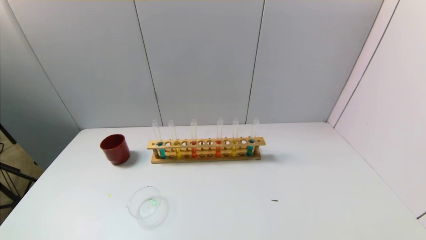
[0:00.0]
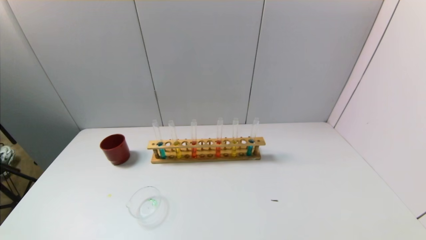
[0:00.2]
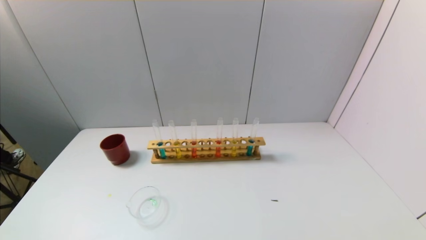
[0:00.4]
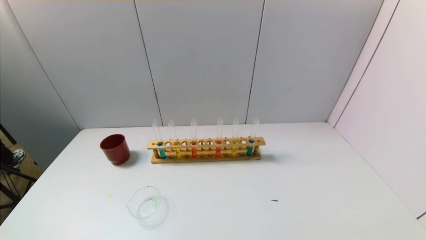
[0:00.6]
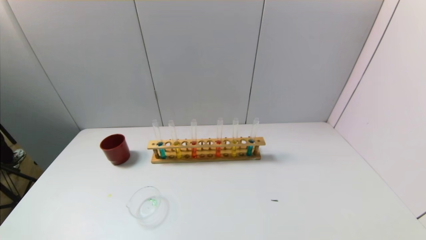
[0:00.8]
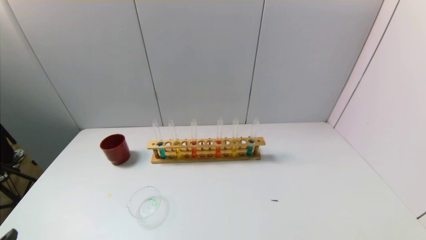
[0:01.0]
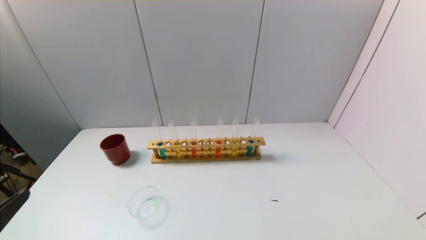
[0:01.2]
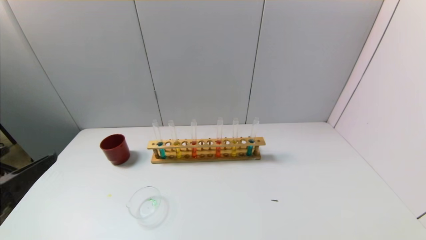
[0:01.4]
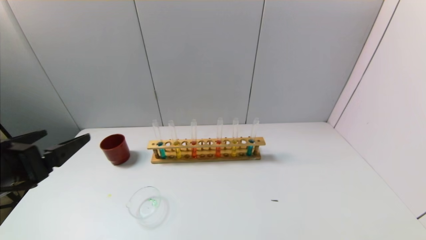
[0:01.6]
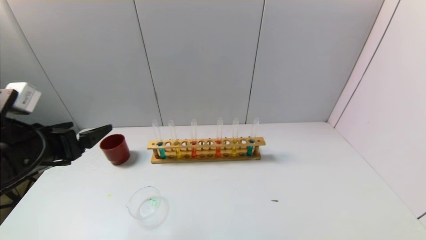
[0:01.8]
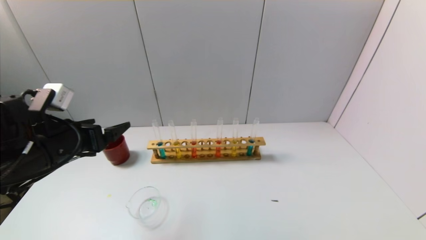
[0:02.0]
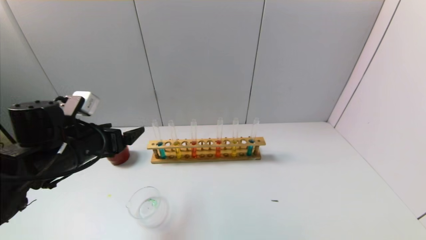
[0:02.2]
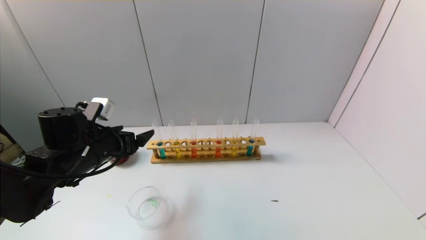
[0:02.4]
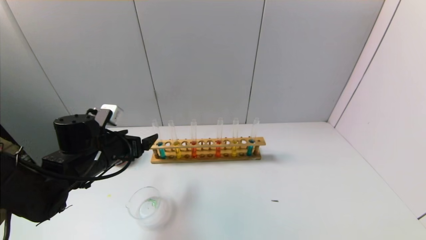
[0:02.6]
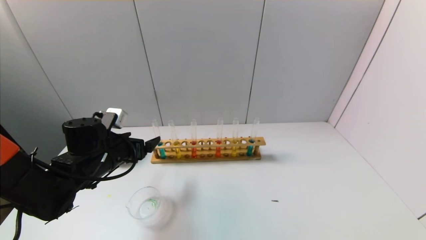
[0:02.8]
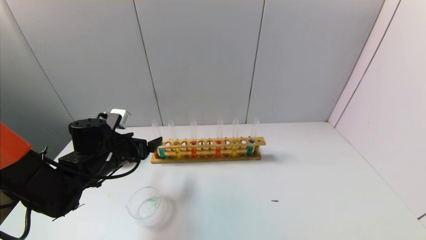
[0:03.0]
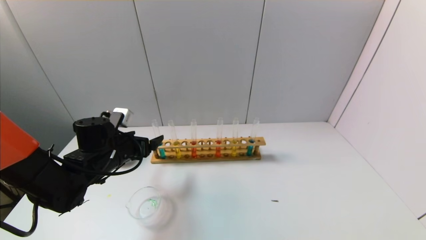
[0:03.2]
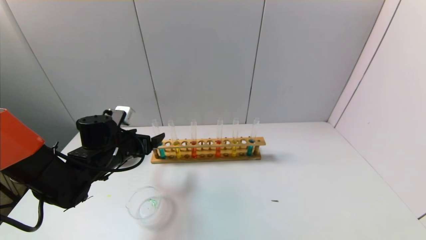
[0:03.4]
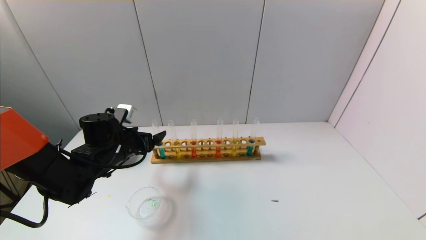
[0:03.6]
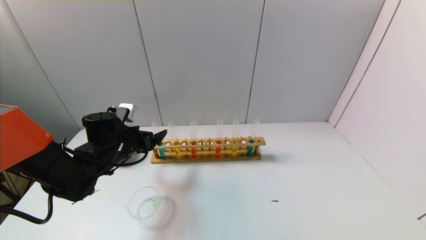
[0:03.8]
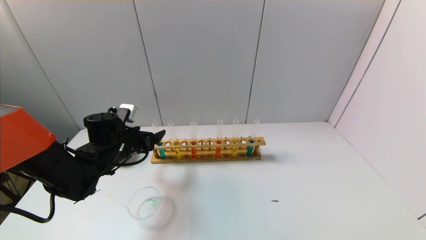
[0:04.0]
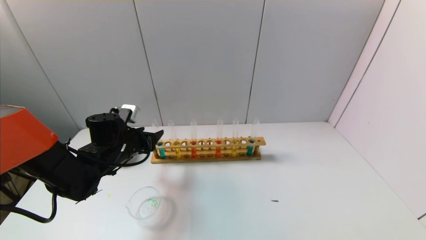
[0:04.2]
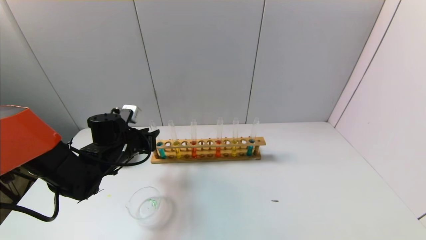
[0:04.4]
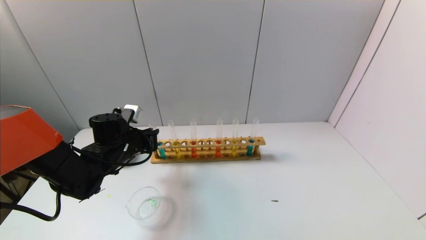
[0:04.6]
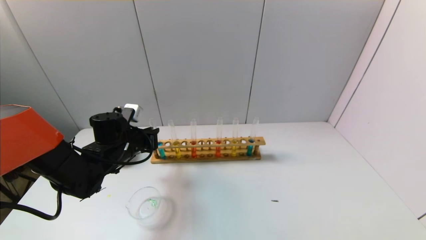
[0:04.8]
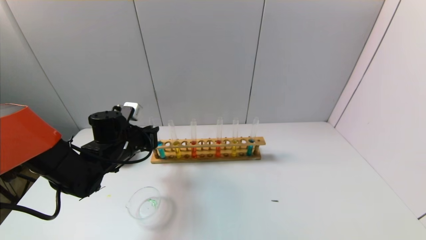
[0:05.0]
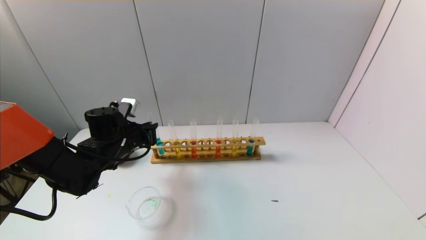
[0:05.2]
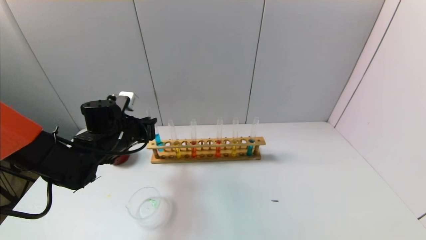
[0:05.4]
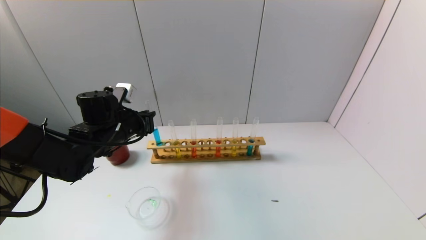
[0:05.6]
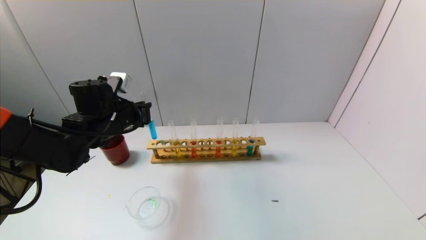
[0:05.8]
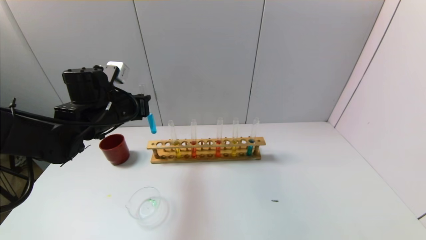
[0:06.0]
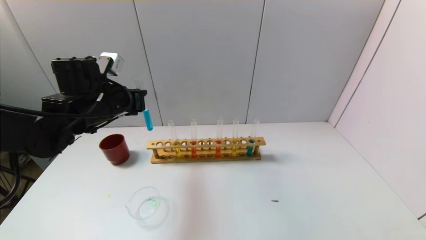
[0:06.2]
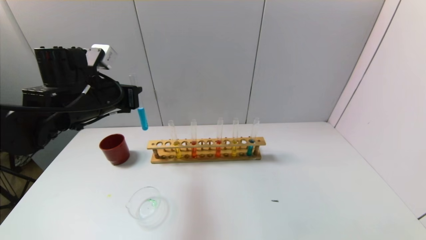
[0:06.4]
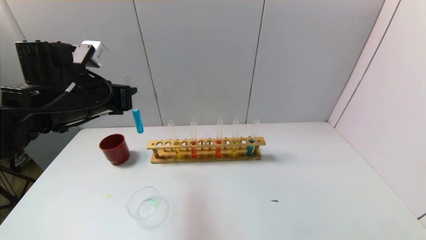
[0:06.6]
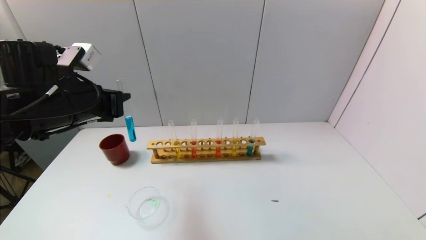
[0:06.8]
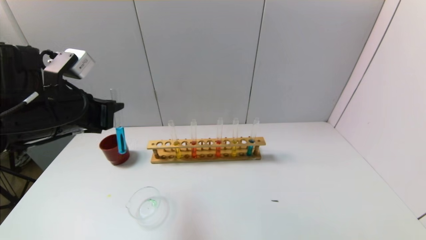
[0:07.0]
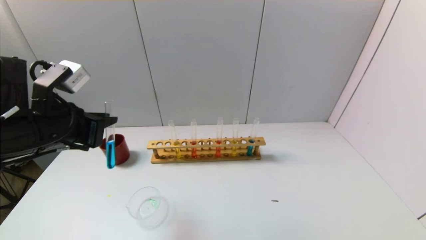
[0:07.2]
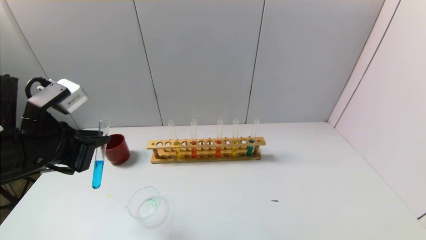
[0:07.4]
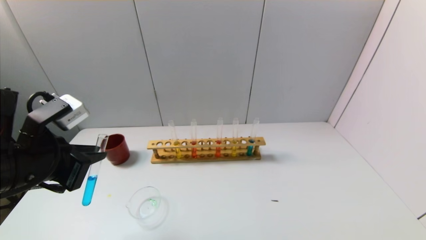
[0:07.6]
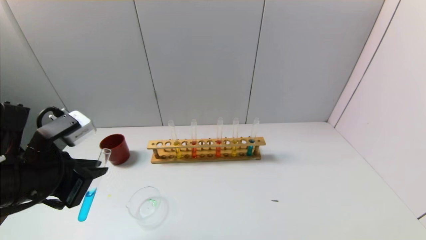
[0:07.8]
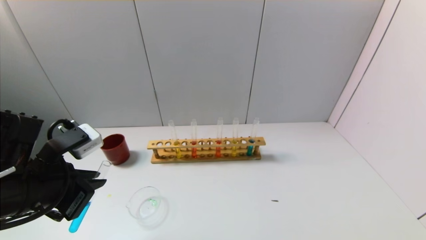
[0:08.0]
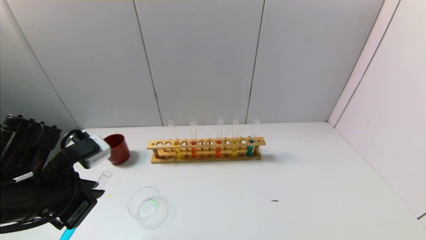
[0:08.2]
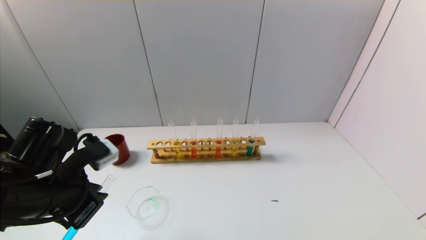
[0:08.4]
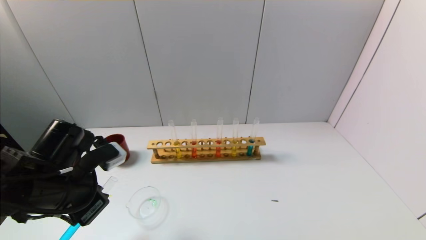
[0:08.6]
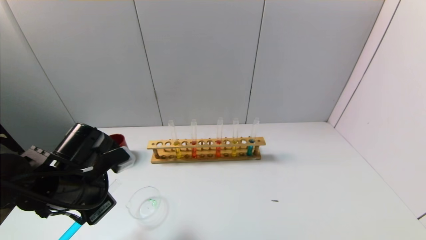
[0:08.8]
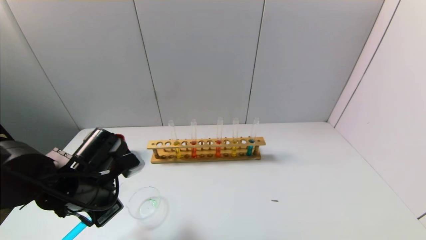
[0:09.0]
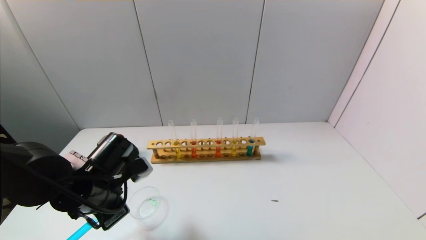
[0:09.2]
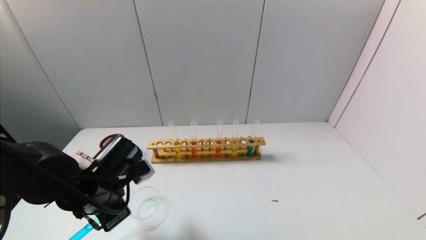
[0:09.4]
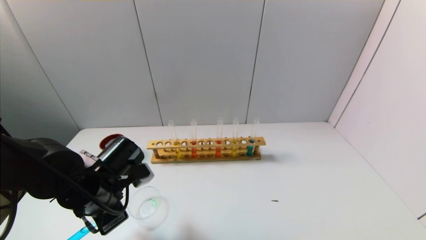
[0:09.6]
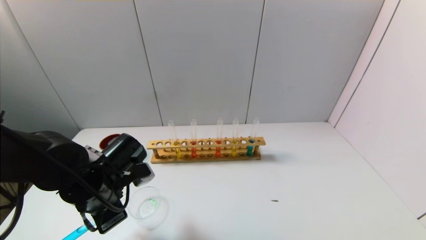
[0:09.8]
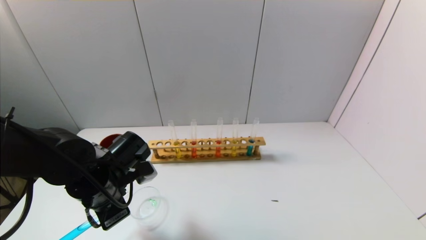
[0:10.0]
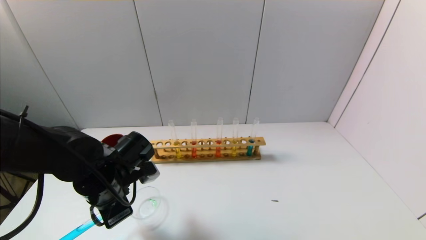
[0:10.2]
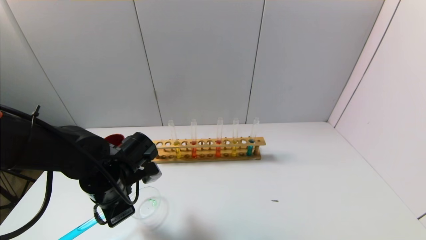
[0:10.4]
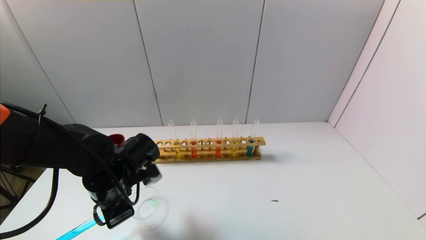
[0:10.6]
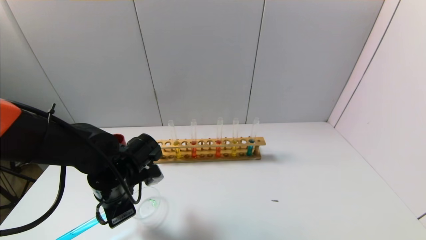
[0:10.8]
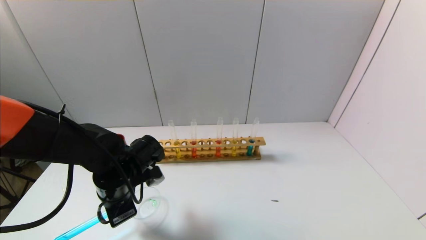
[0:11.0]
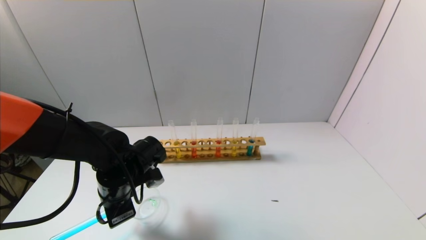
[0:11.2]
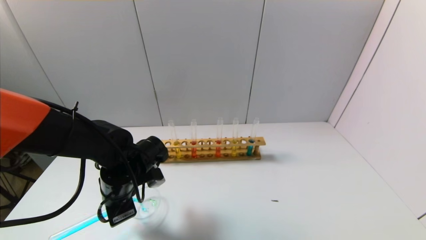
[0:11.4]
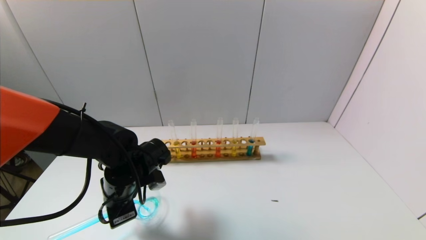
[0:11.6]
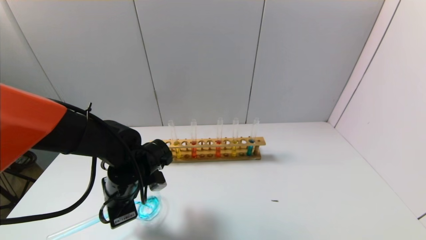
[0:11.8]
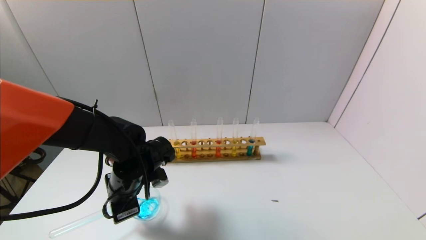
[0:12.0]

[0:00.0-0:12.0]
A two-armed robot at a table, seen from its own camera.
Task of the whole recording: pick up the test tube with yellow pigment and the test tube with blue pigment by grippers and pour them into the beaker.
Step, 0:00.0 to 0:05.0: Grasp the blue reagent with the left gripper.
0:00.0 to 0:01.6: The left gripper moves forward and upward, some 20 cm.
0:01.6 to 0:03.0: The left gripper shifts roughly 20 cm forward and downward.
0:03.0 to 0:04.4: The left gripper closes its fingers.
0:04.4 to 0:06.0: The left gripper heads upward, covering some 10 cm.
0:06.0 to 0:07.6: The left gripper travels backward by some 15 cm.
0:07.6 to 0:09.0: The left gripper goes roughly 10 cm downward.
0:09.0 to 0:10.4: There are only small adjustments of the grippers.
0:10.4 to 0:12.0: The grippers stay close to where they were, moving slightly.

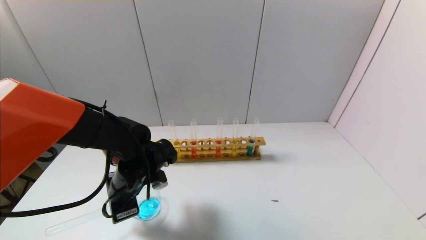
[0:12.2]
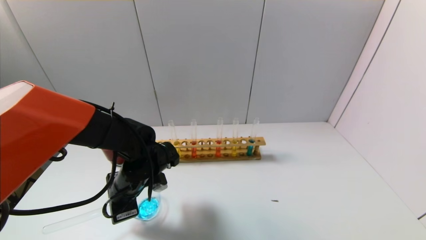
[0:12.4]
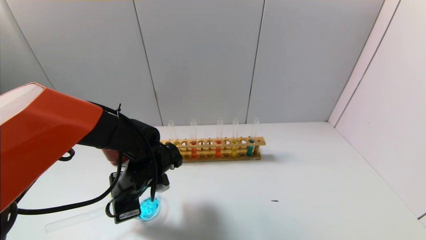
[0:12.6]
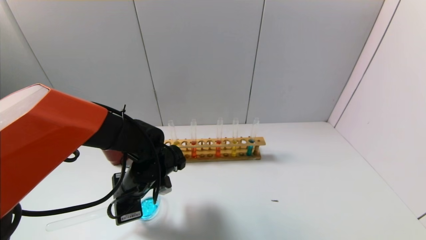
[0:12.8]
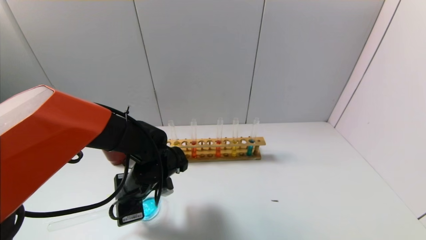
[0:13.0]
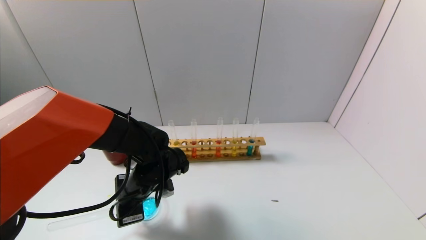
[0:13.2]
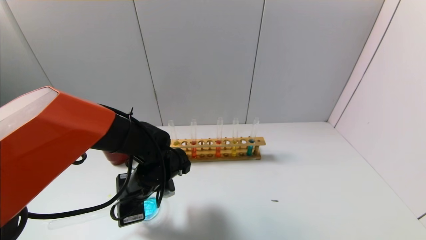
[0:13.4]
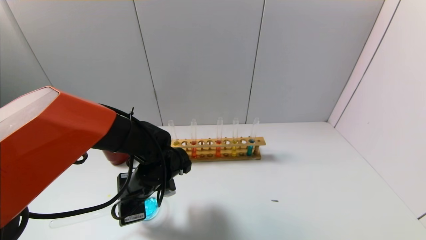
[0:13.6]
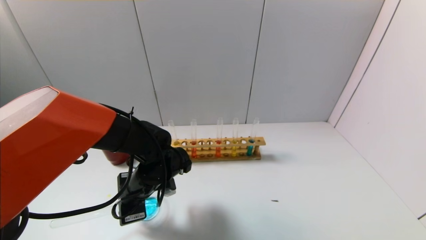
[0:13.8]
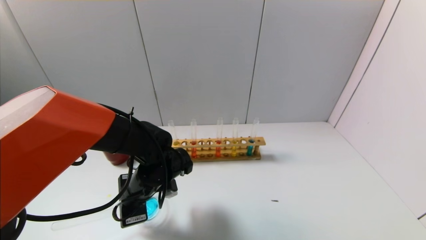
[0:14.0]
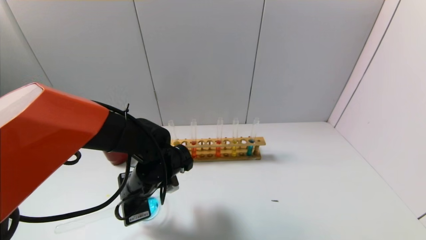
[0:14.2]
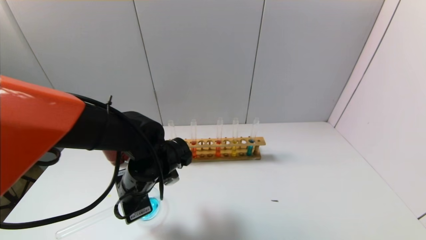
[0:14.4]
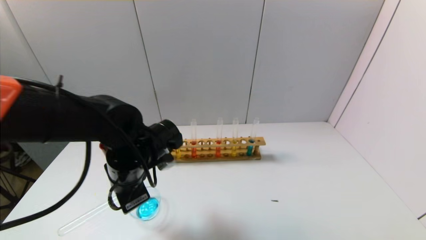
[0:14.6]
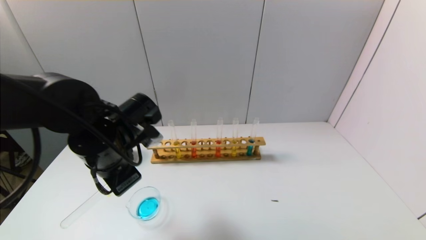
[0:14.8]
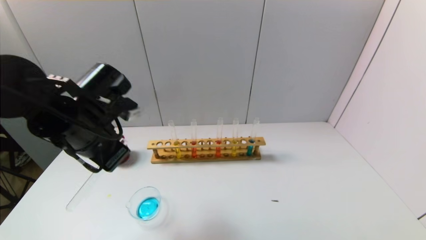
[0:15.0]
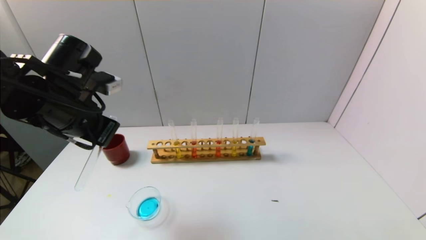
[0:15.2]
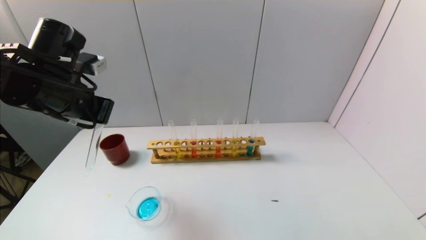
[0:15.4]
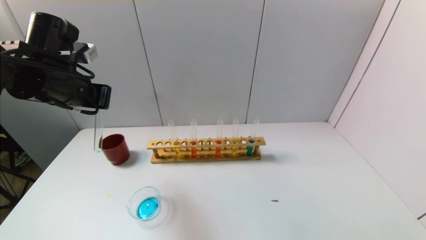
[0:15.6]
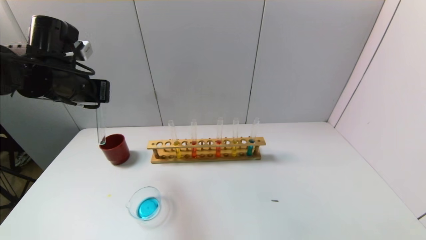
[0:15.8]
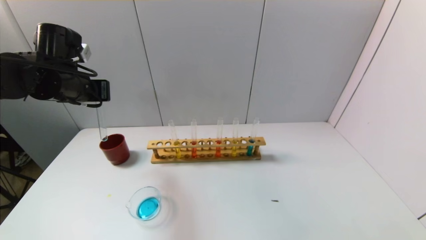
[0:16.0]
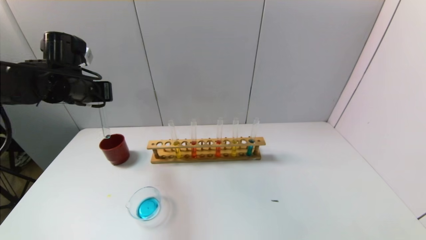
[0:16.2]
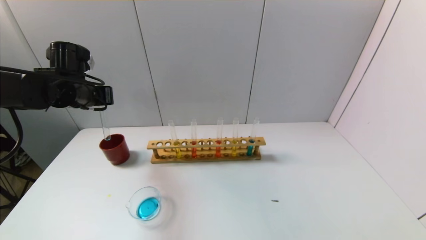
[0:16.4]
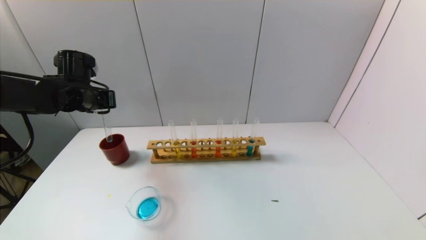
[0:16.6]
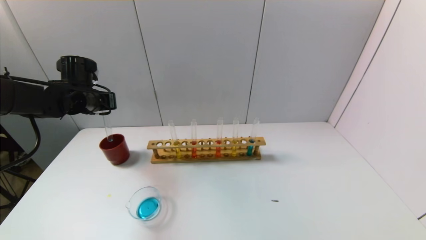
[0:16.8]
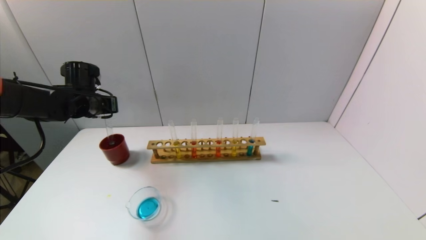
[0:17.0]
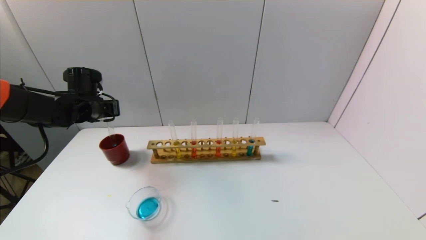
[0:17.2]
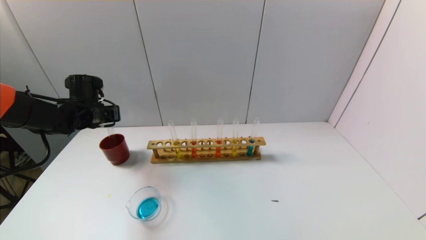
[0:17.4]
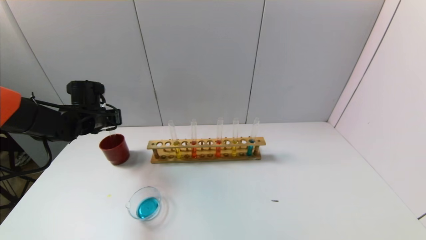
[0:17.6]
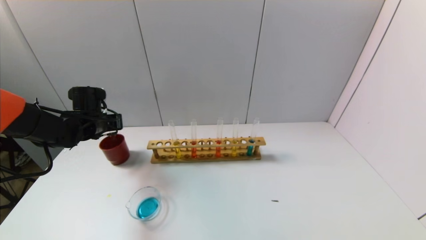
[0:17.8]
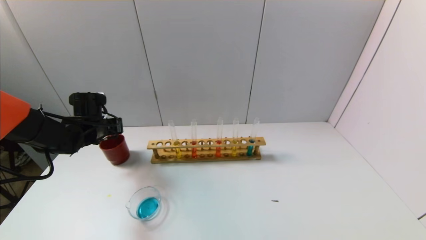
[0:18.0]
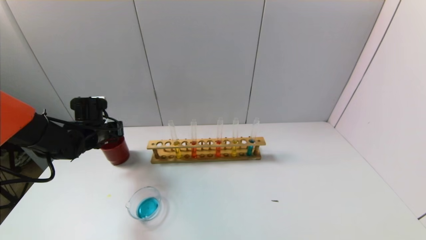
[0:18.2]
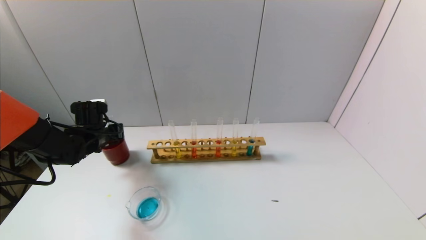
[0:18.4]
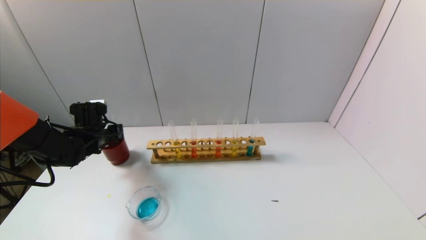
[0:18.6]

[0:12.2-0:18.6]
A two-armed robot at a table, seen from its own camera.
Task of the whole recording: pick up the test tube with yellow pigment and the test tube with blue pigment by grippers and pour them into the beaker.
0:12.2 to 0:13.8: The grippers make only small movements.
0:13.8 to 0:15.4: The left gripper travels upward and to the left by approximately 20 cm.
0:15.4 to 0:17.0: The left gripper is displaced forward, downward and to the left by roughly 15 cm.
0:17.0 to 0:18.6: The left gripper heads downward, covering approximately 10 cm.
